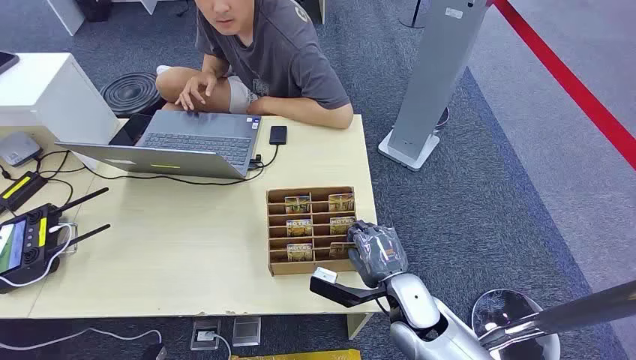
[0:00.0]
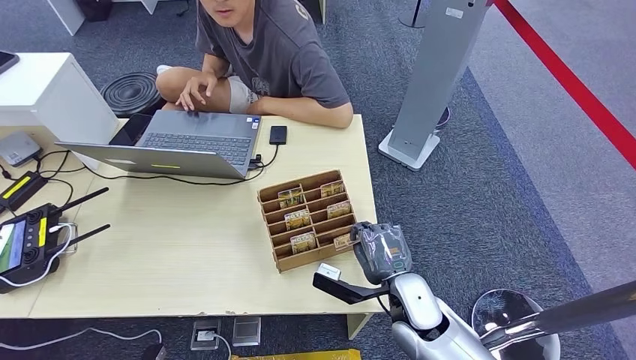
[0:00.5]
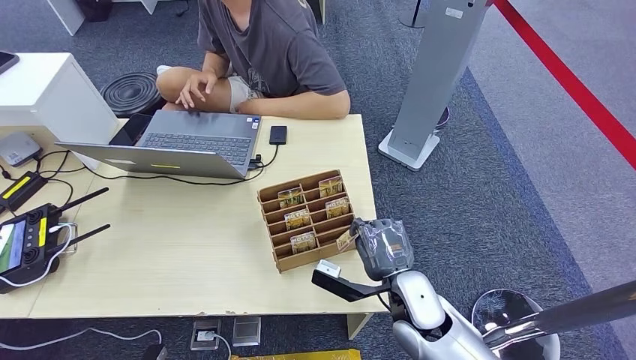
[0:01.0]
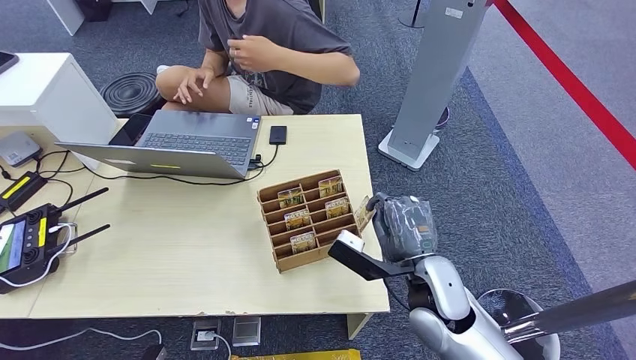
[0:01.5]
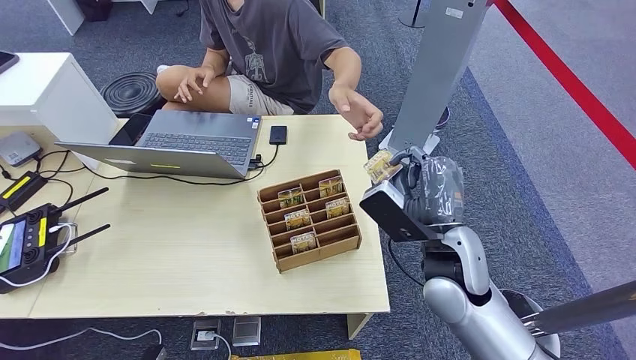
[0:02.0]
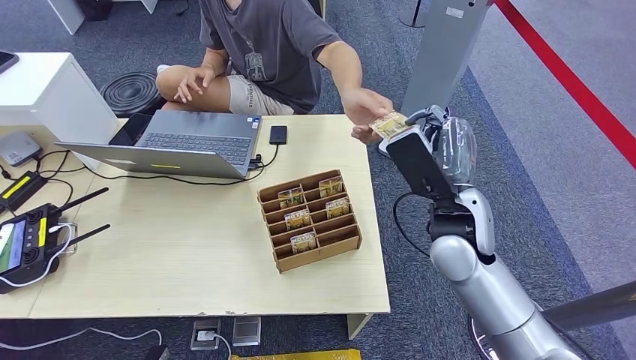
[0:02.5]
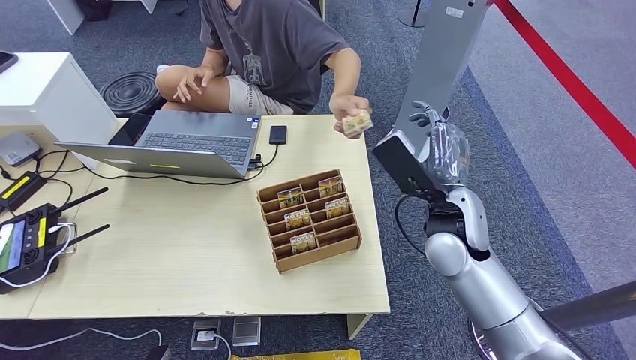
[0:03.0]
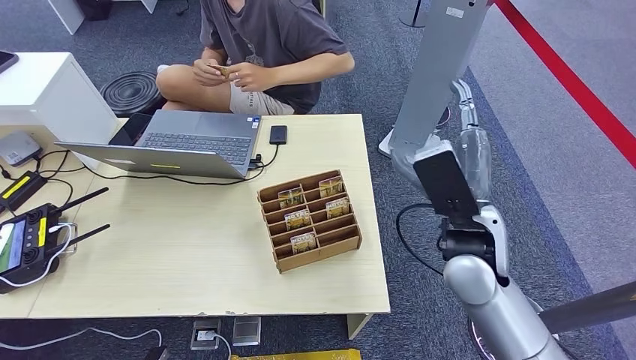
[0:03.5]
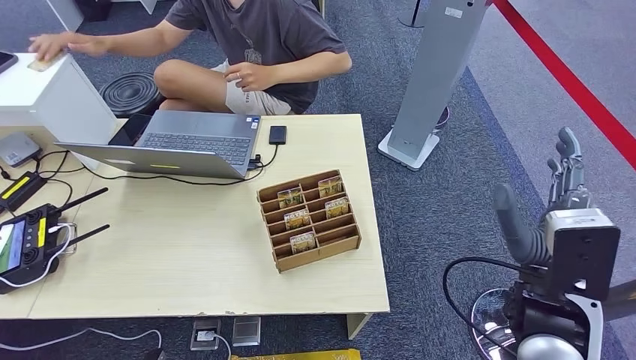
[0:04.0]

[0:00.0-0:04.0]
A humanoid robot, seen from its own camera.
Step, 0:00.0 to 0:01.5: Pick up the key card from the card box.
Step, 0:02.0 to 0:04.0: Hand the key card to the target.
0:02.0 to 0:04.0: The right hand is displaced backward and to the right by some 10 cm.

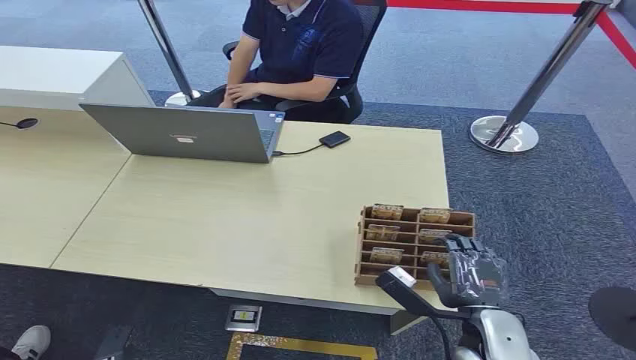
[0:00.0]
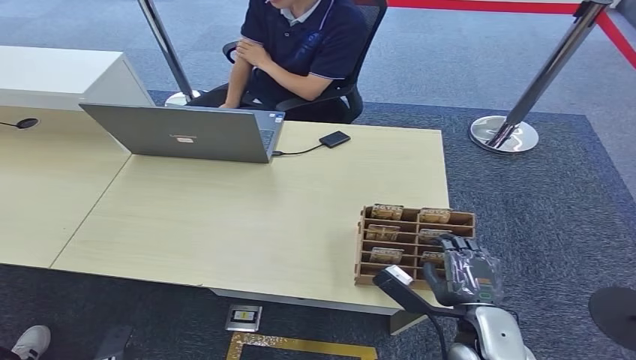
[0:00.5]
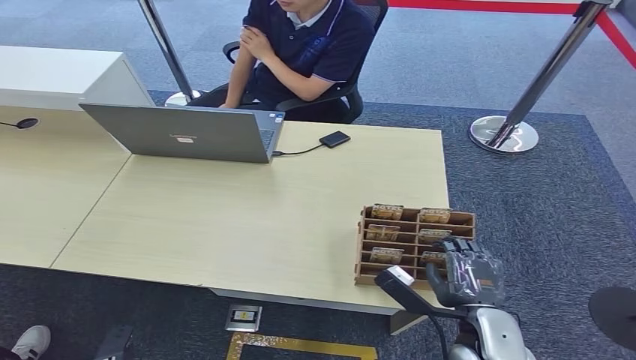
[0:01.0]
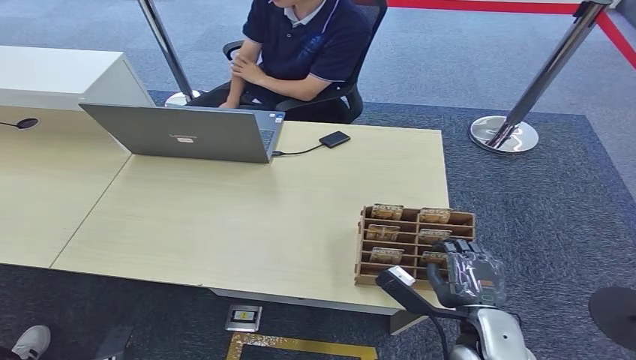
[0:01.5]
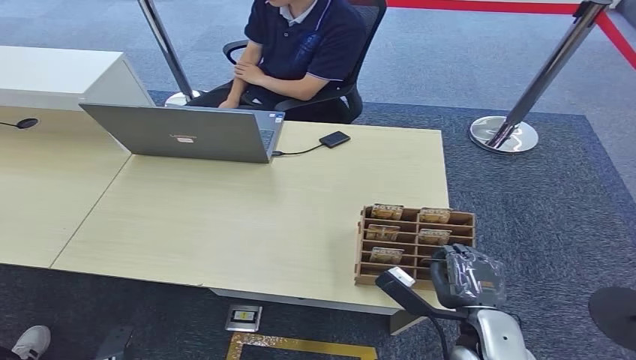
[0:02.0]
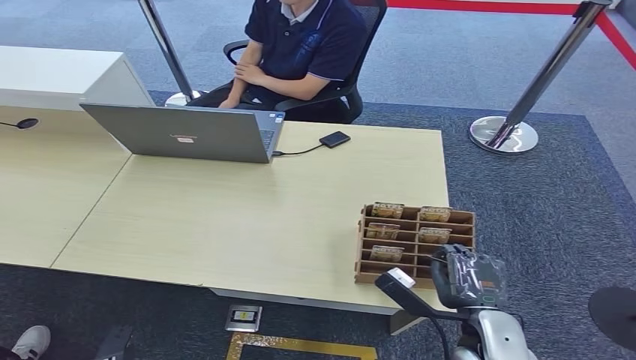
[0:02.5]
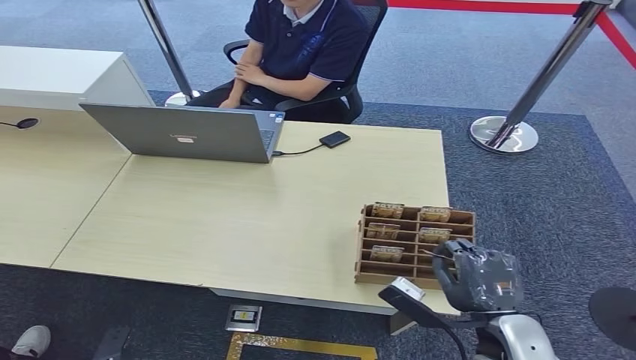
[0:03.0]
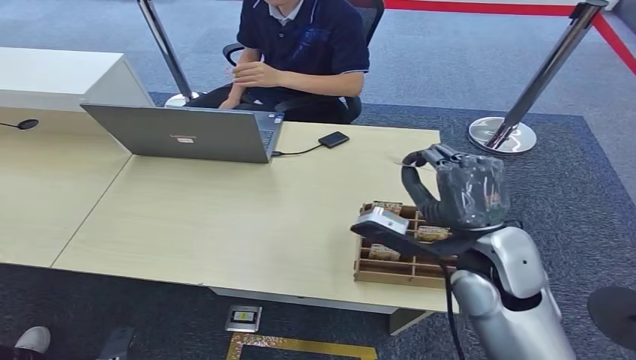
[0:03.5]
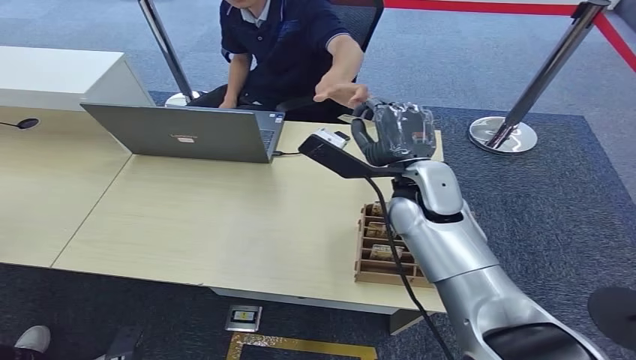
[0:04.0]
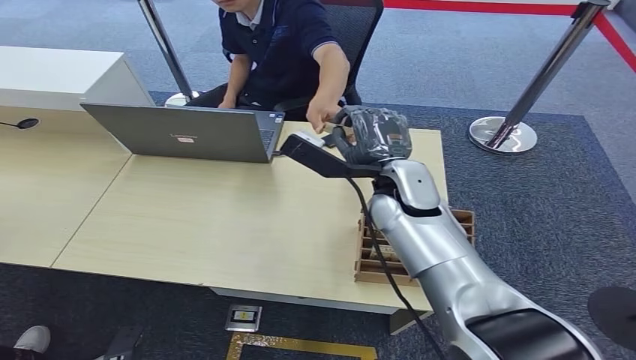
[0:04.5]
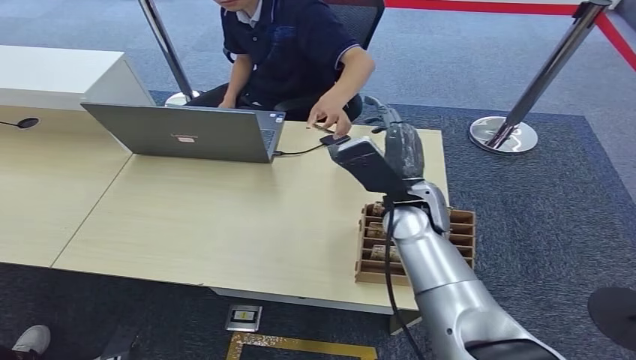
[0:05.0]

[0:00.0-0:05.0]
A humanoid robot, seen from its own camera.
Step, 0:00.0 to 0:03.0: Pick up the key card from the card box.
Step, 0:03.5 to 0:05.0: Hand the key card to the target.
0:02.5 to 0:05.0: The right hand travels forward, upward and to the left by about 25 cm.
